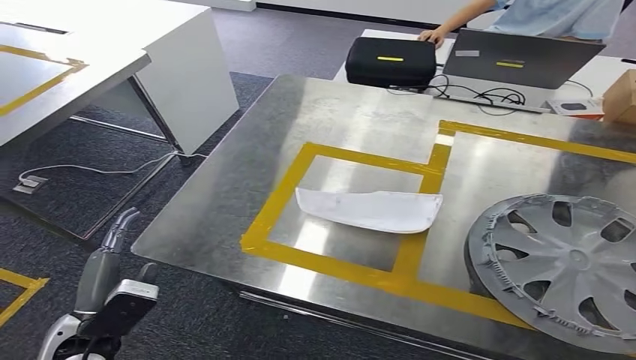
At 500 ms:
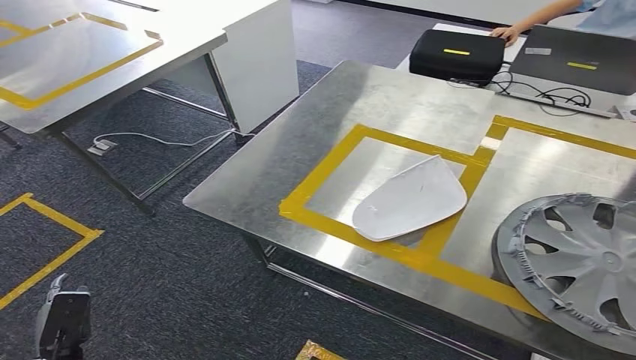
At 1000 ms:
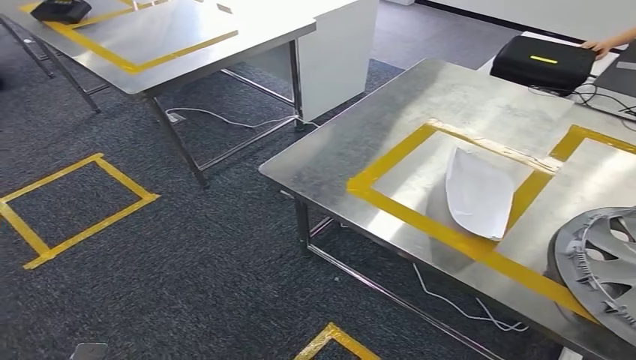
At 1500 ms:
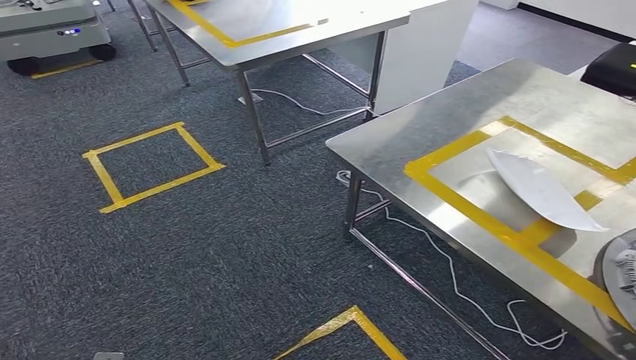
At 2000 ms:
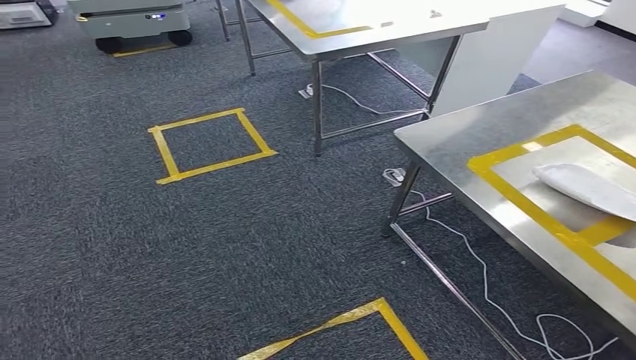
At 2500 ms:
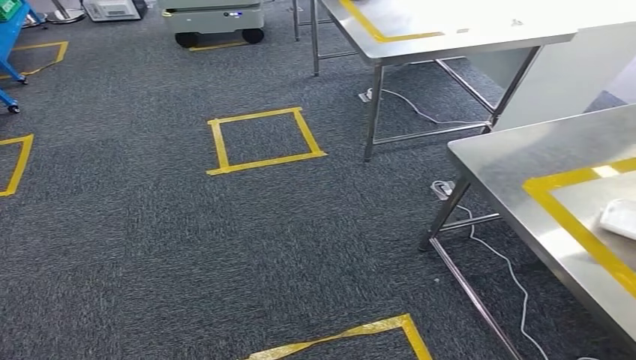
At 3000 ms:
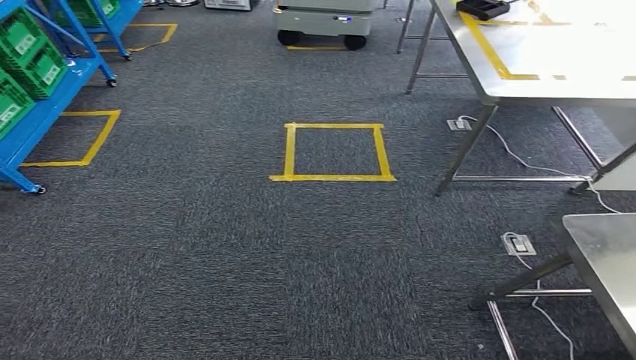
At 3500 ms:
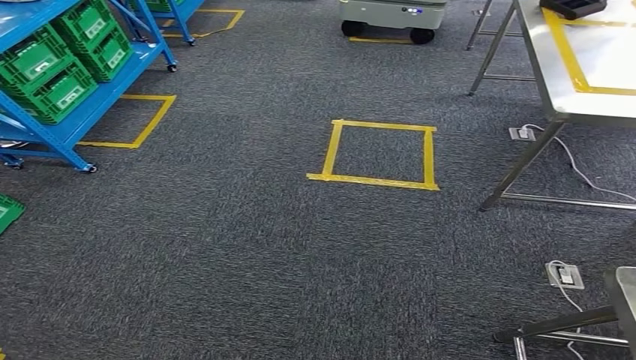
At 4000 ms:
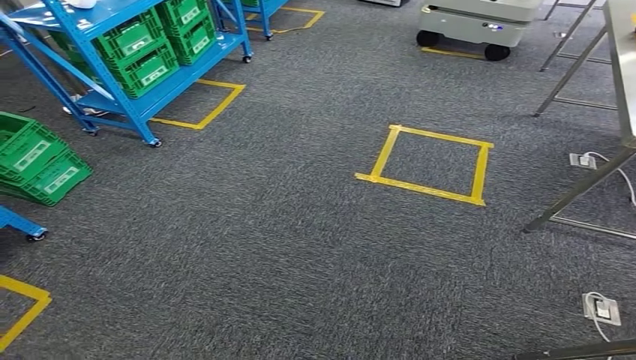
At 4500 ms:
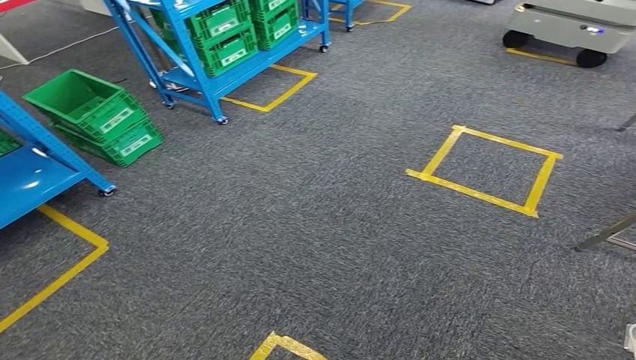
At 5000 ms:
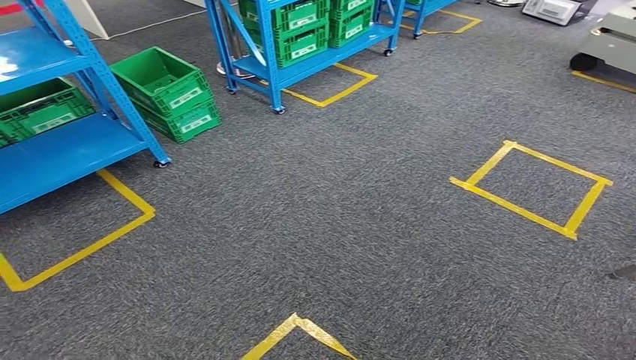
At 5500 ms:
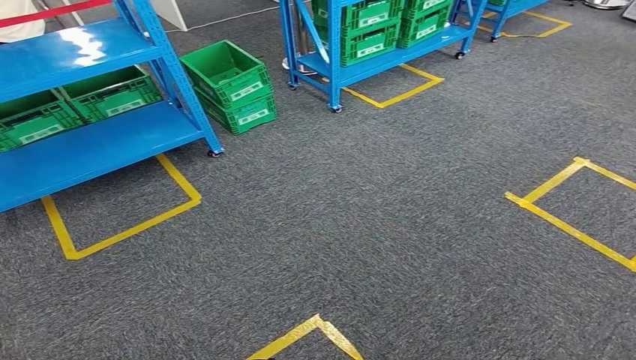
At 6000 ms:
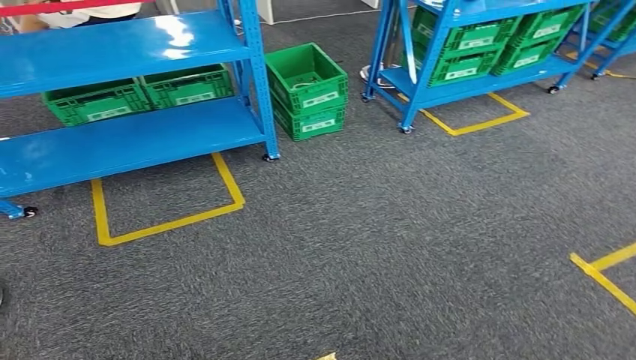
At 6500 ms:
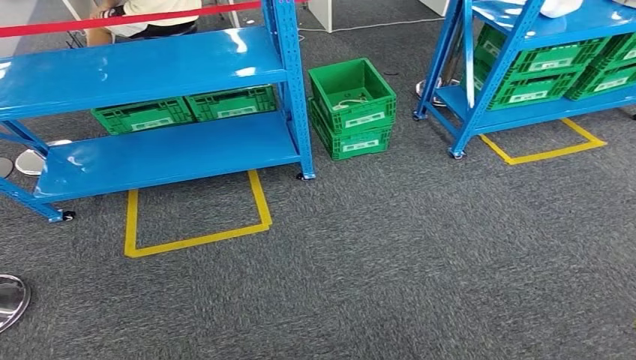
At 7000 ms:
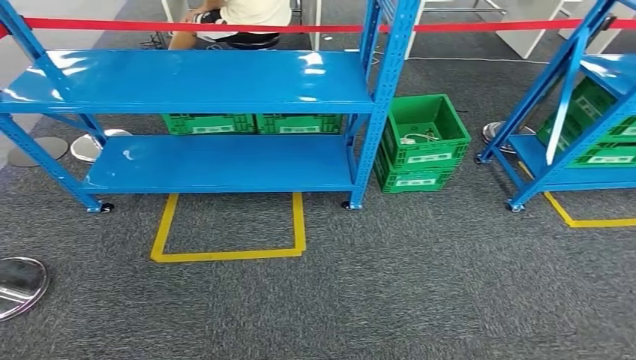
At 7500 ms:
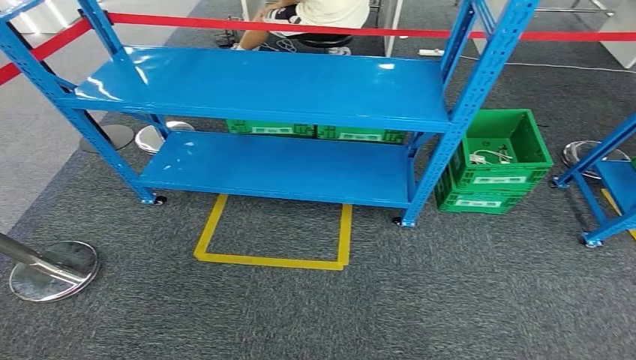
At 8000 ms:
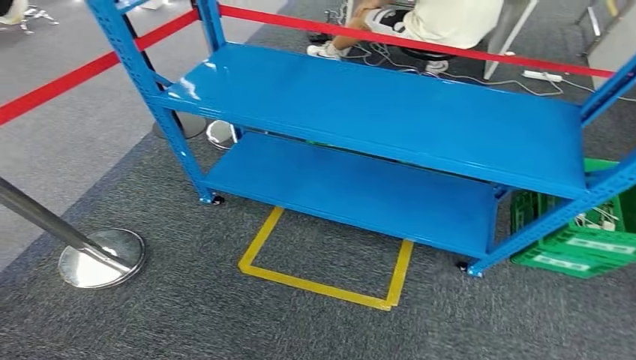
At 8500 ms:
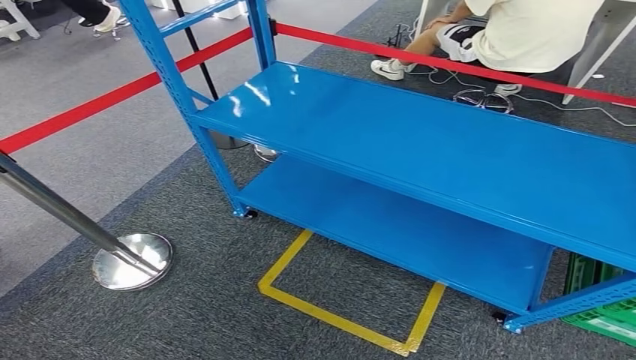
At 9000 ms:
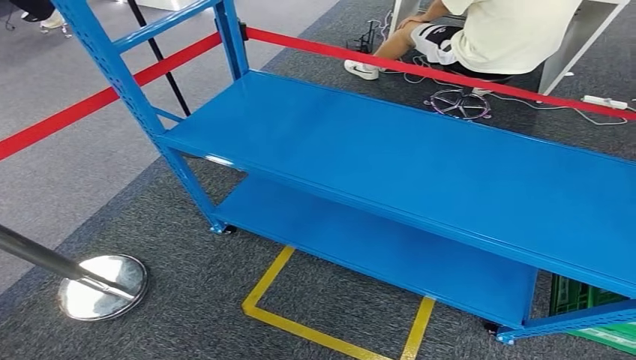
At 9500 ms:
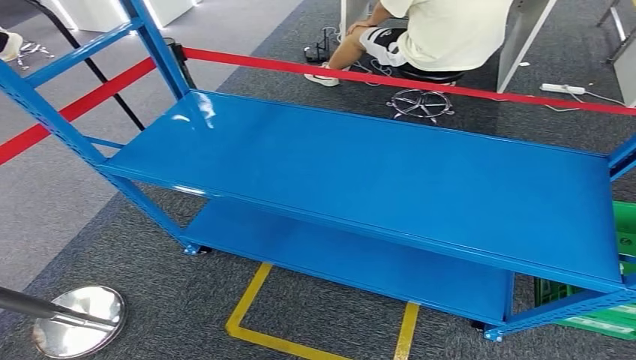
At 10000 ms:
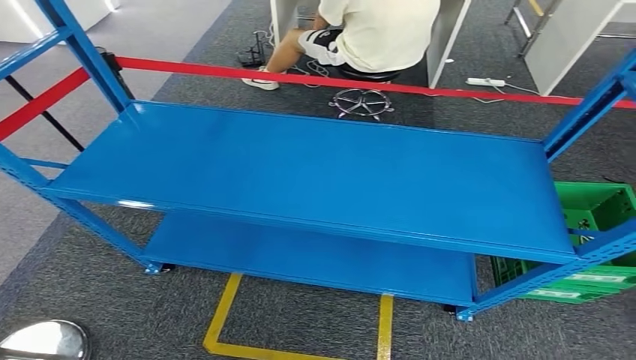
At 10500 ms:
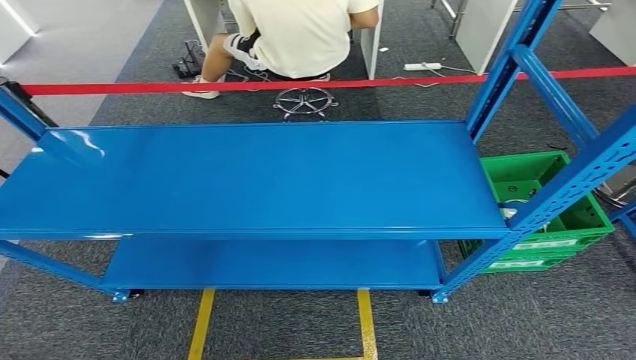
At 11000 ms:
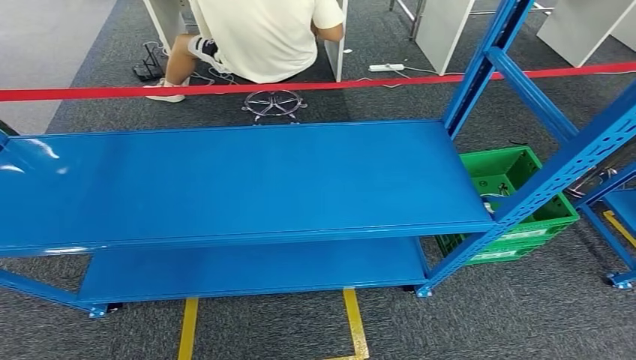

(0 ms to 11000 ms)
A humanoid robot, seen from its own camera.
Step, 2000 ms - 11000 ms: Return to the initial position at the workbench.
